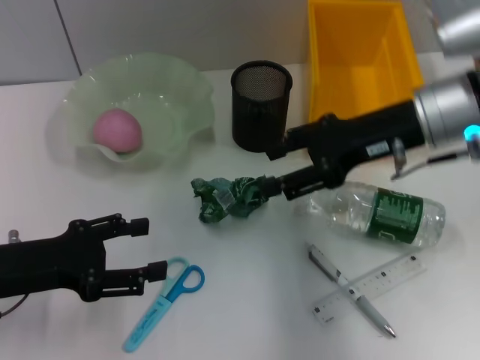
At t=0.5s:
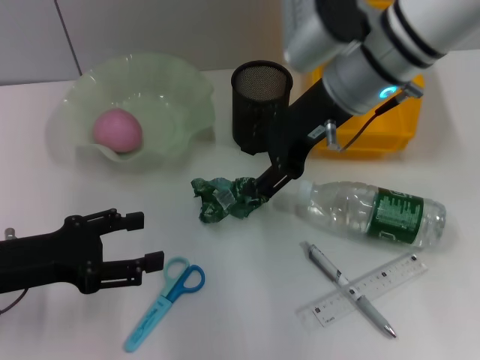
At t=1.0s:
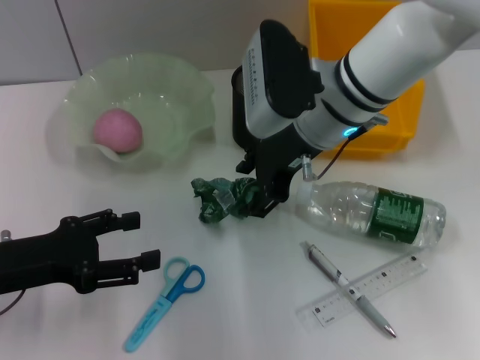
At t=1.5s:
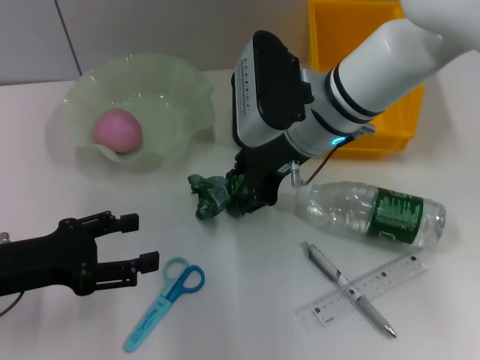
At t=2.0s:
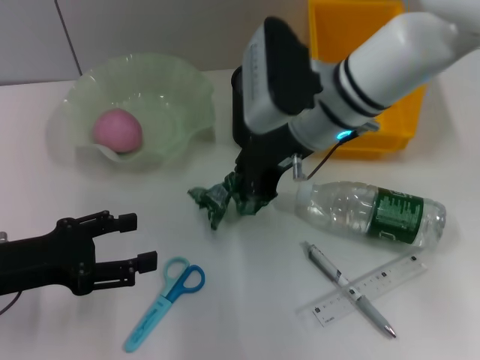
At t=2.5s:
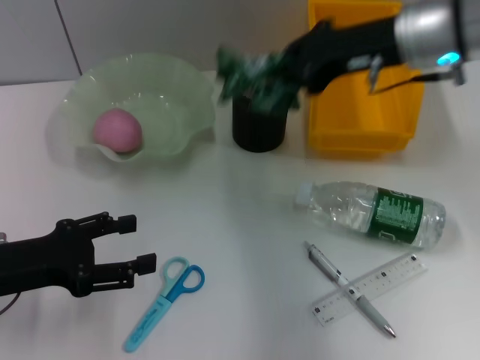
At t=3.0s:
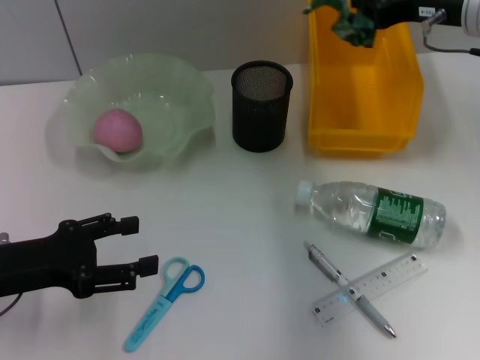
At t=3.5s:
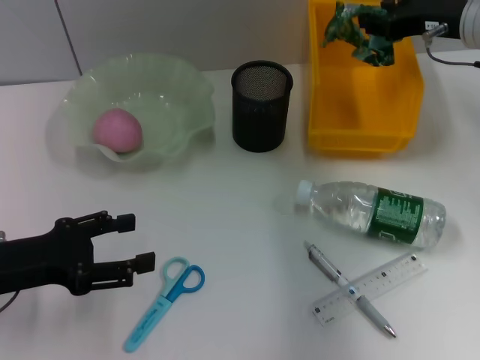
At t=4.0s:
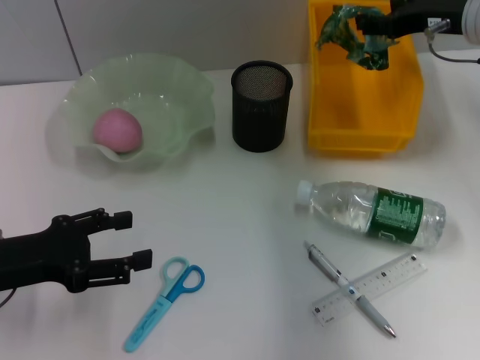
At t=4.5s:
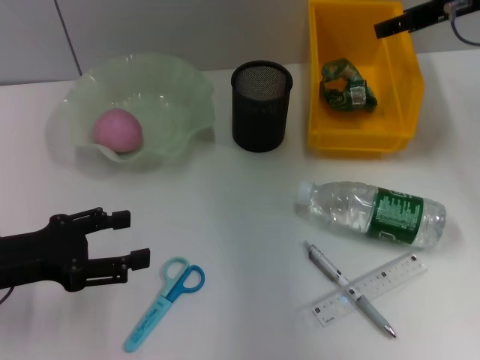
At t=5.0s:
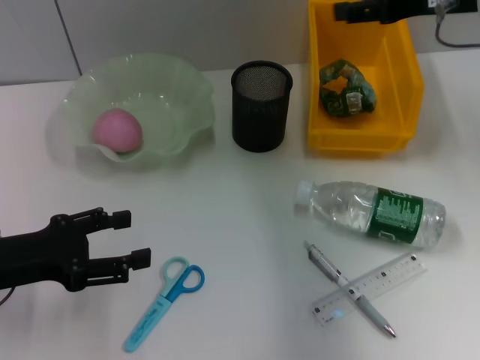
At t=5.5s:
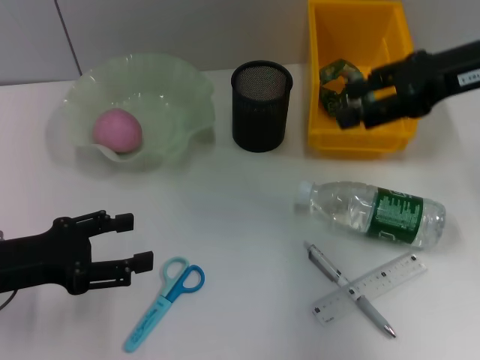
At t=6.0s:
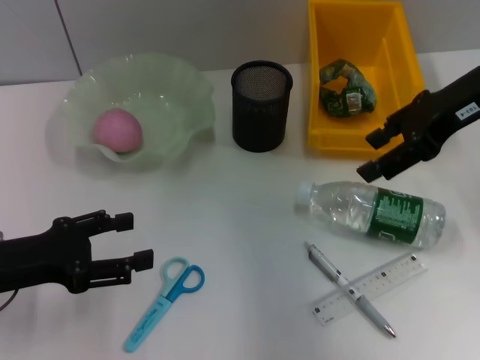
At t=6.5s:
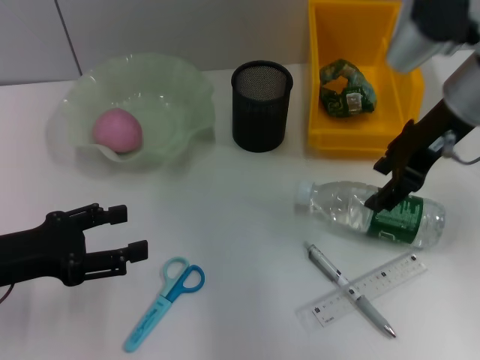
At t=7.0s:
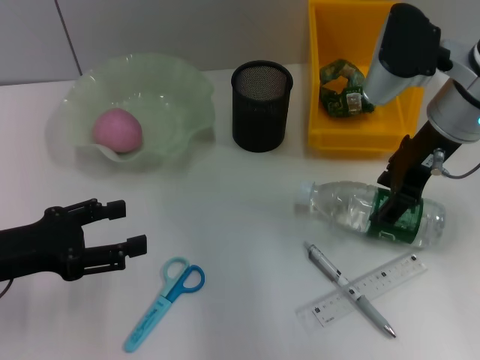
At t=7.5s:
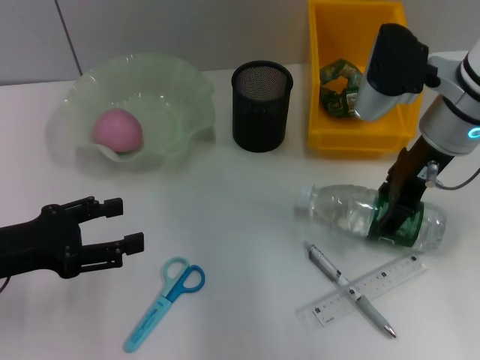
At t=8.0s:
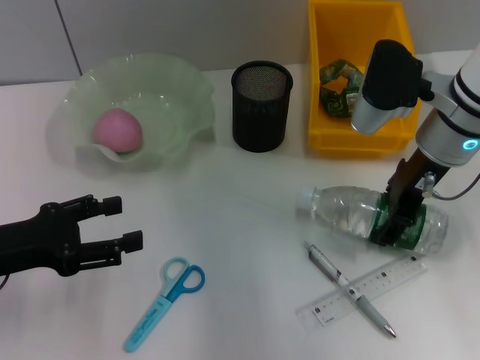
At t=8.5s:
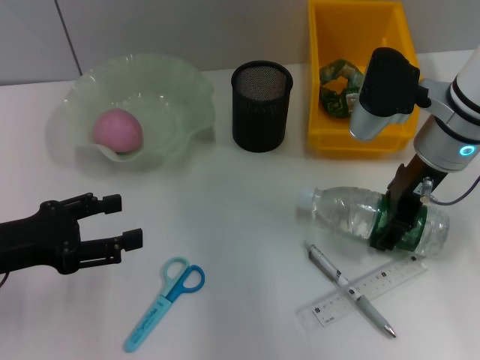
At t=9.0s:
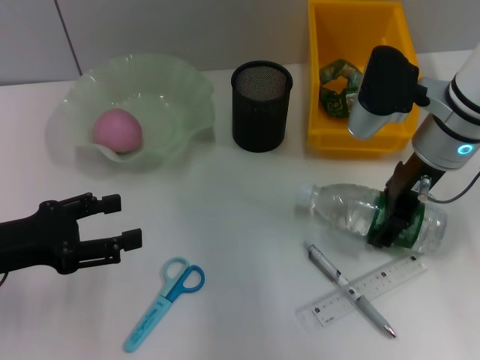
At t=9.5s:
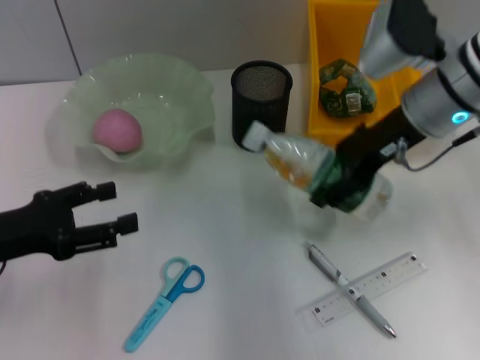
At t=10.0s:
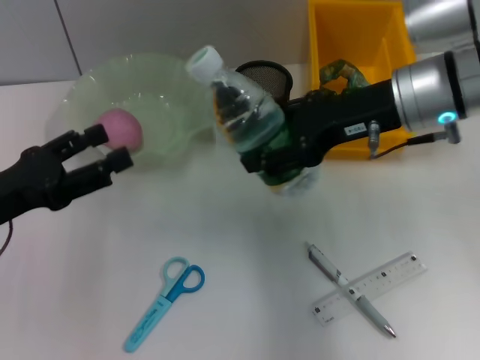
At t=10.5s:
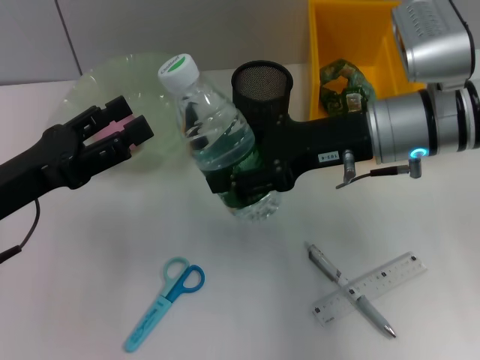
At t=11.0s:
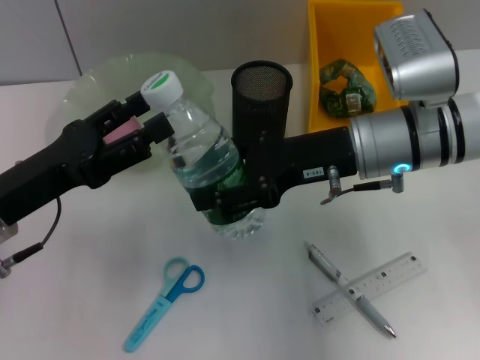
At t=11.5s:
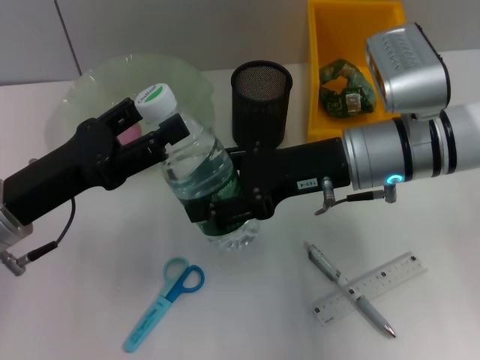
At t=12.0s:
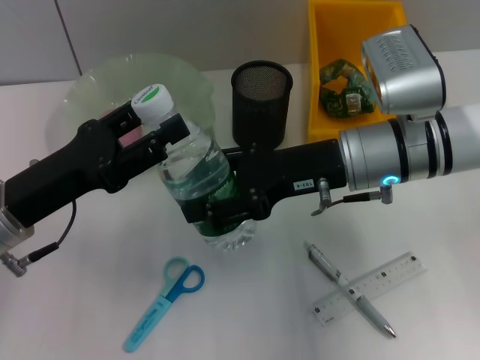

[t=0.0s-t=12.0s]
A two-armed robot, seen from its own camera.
Step, t=0.0s to t=1.5s: Grab the plastic with the right hand.
Step, t=2.0s to t=4.0s: Place the plastic into the trash can with the right hand.
Step, t=4.5s to t=8.5s: Grab the water bottle with the right hand.
t=0.0s to t=2.0s: The right gripper goes roughly 10 cm to the left, and closes up.
t=2.0s to t=4.0s: The right gripper is displaced to the right by roughly 15 cm, and opens up.
t=4.0s to t=6.0s: The right gripper shifts some 5 cm backward.
t=6.0s to t=8.0s: The right gripper heads downward and to the left, covering roughly 10 cm.
t=10.0s to t=12.0s: The left gripper moves to the right, approximately 5 cm; the right gripper heads downward, covering approximately 5 cm.

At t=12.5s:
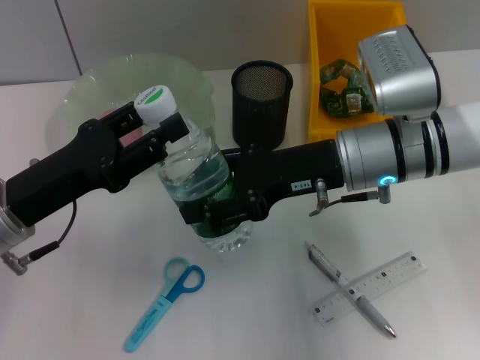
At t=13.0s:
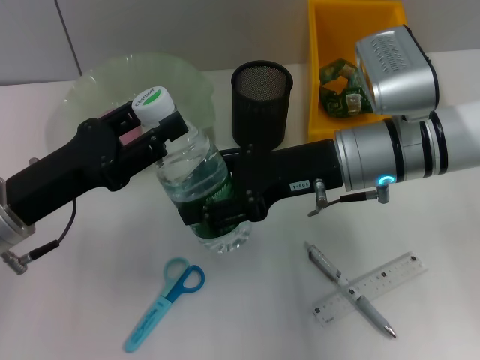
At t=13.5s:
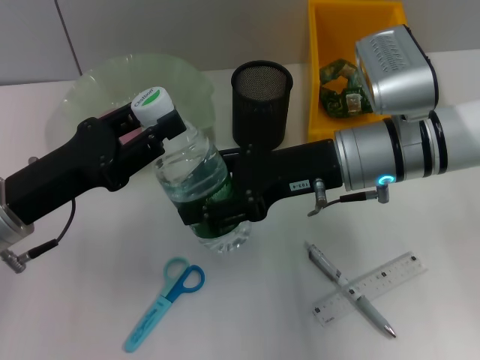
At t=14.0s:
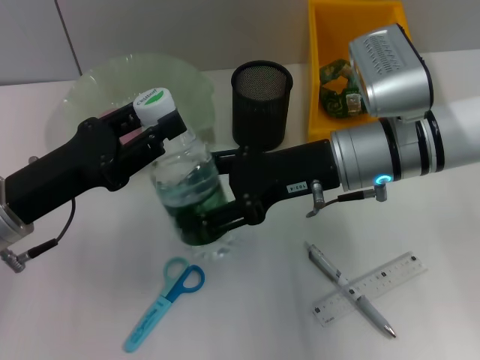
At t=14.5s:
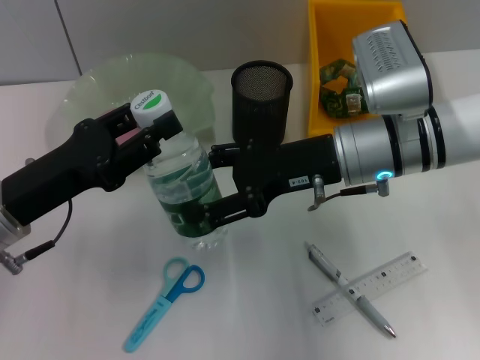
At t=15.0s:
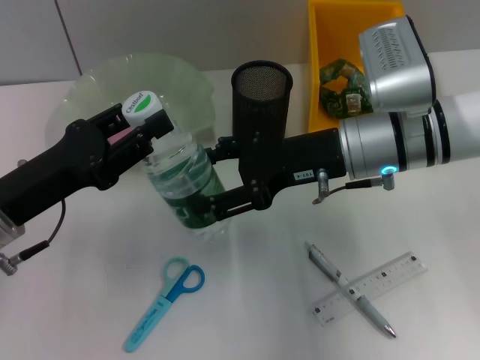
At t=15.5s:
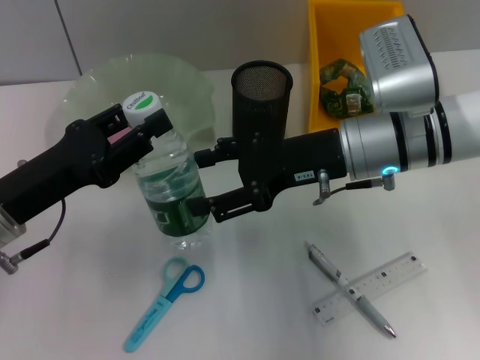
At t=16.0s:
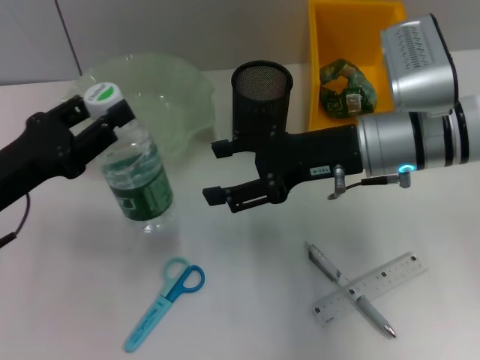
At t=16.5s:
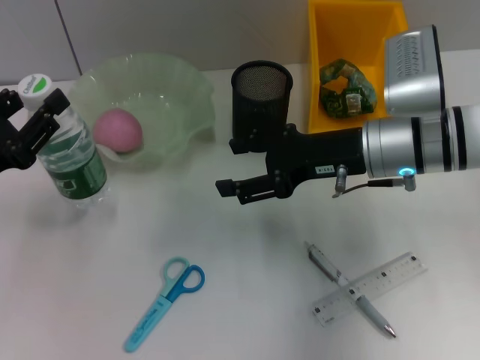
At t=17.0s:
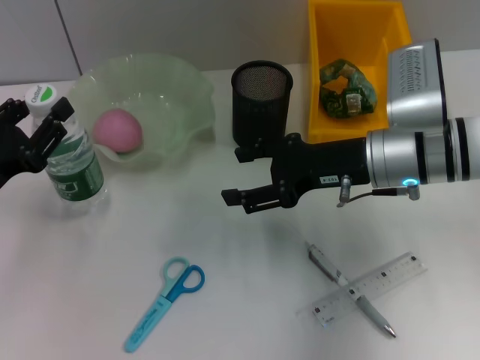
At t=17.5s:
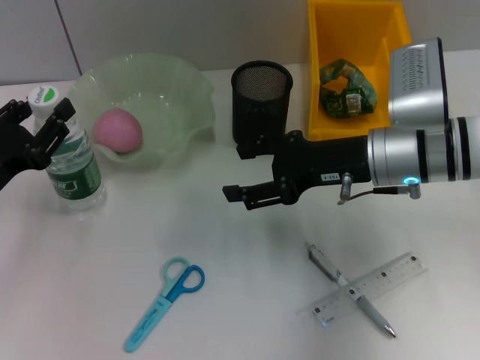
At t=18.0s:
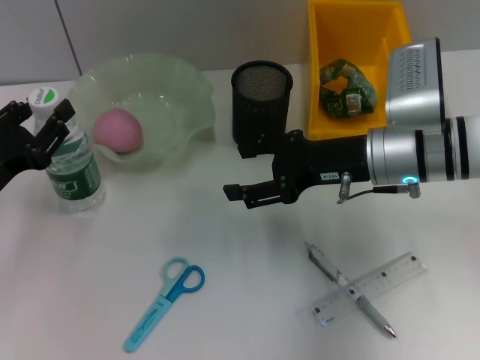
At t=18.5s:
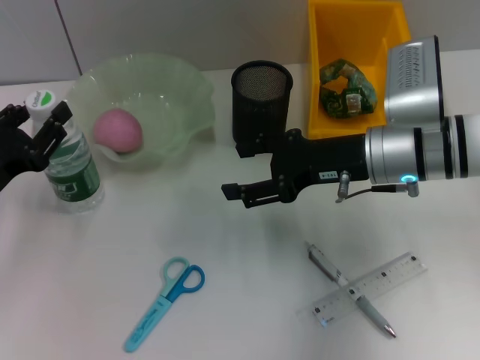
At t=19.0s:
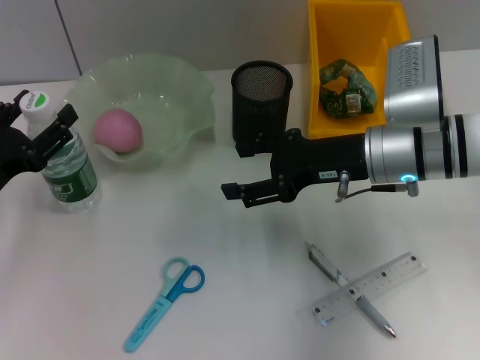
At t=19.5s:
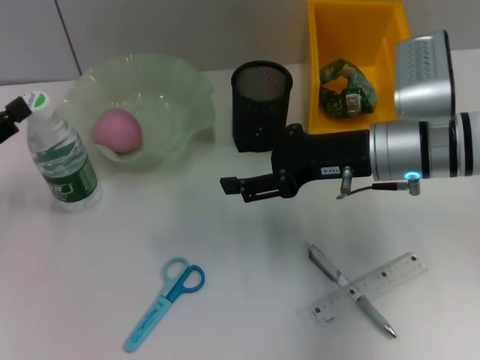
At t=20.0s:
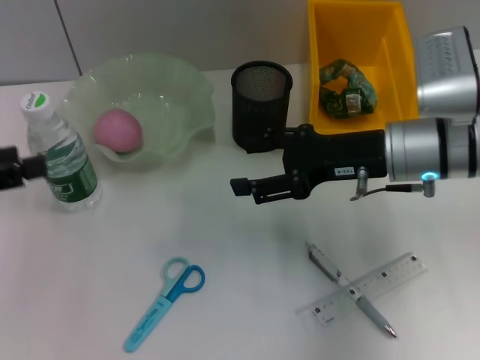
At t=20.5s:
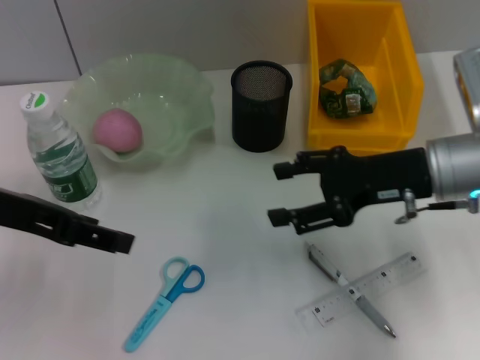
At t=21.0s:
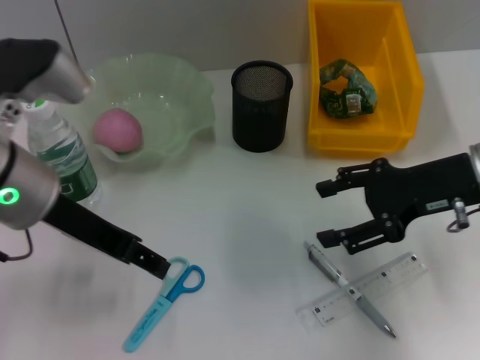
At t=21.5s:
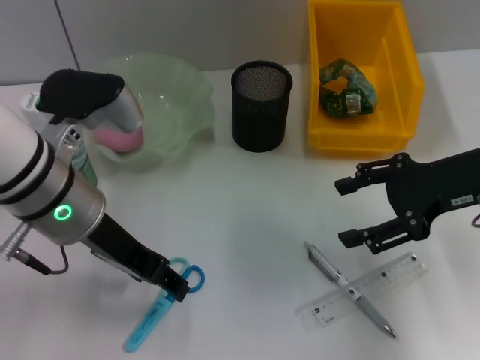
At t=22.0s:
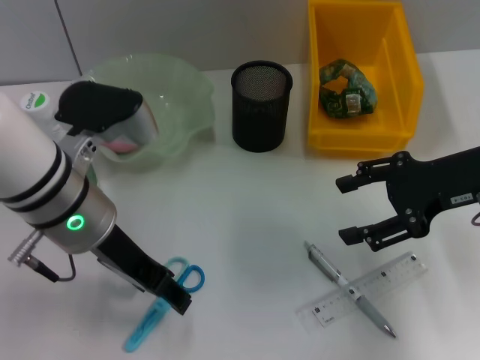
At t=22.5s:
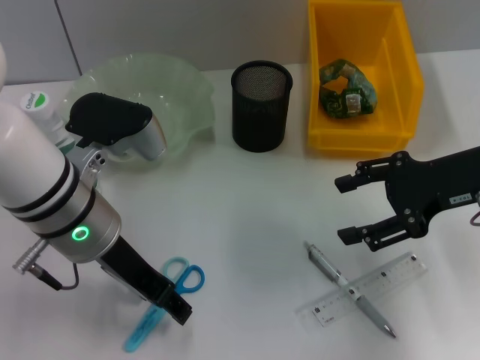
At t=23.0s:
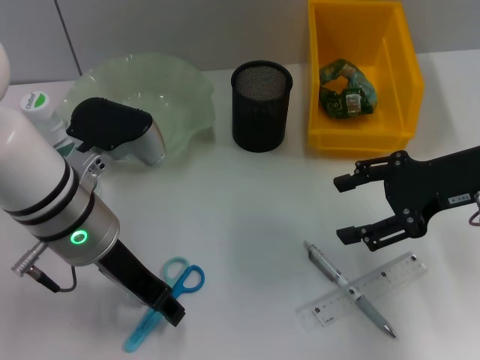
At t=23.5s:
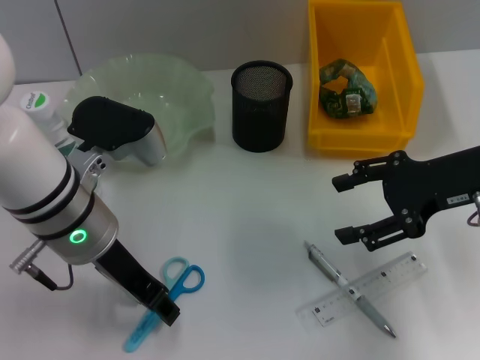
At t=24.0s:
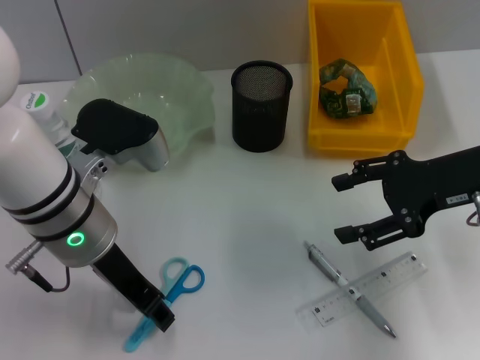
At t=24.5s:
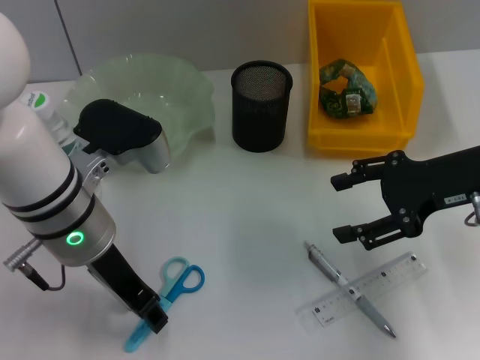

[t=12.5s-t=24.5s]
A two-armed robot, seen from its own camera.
Step, t=14.5s to t=19.0s: Place the water bottle on the table with the left hand.
t=12.5s to t=14.5s: The two grippers keep their place.
t=14.5s to t=16.5s: The left gripper is displaced to the left by roughly 5 cm.
t=16.5s to t=18.5s: There are only small adjustments of the grippers.
t=18.5s to t=20.5s: The left gripper moves upward, roughly 15 cm, and opens up. The right gripper shifts by approximately 5 cm.
t=20.5s to t=22.5s: The right gripper changes place by about 5 cm, while the left gripper goes some 10 cm to the right and downward.
t=22.5s to t=24.5s: The left gripper closes.

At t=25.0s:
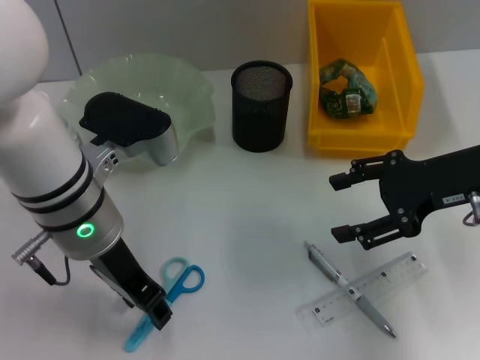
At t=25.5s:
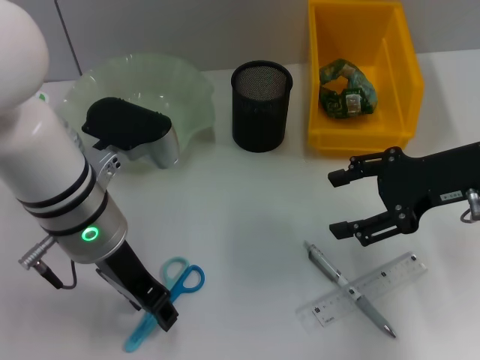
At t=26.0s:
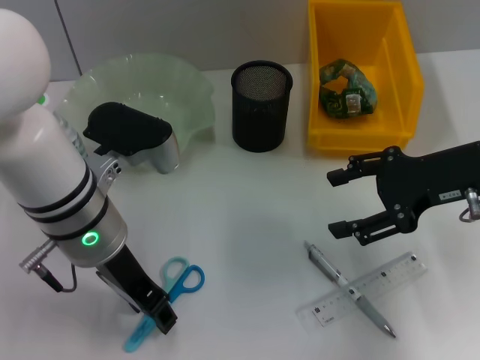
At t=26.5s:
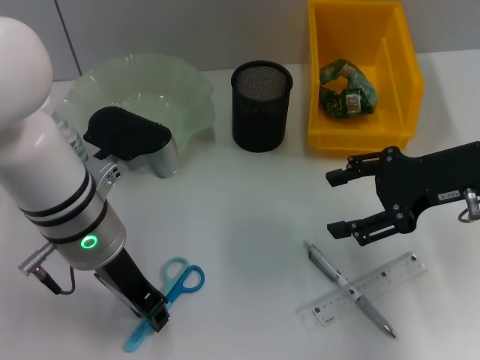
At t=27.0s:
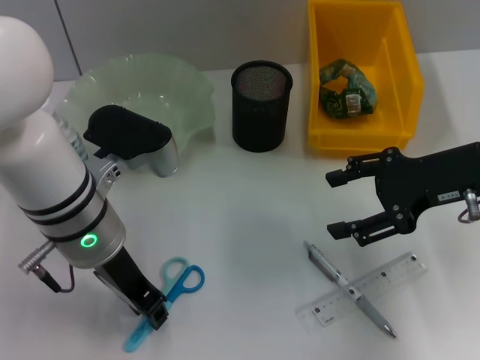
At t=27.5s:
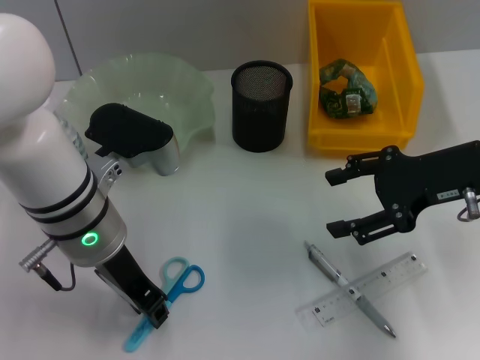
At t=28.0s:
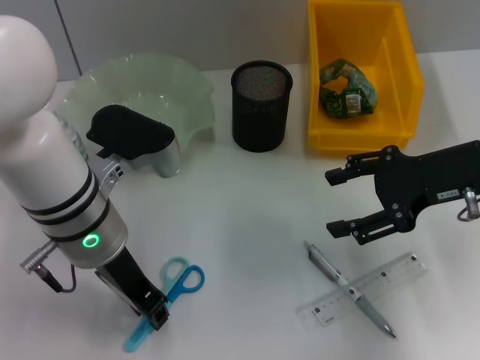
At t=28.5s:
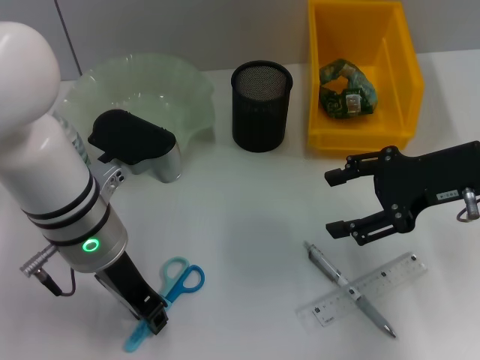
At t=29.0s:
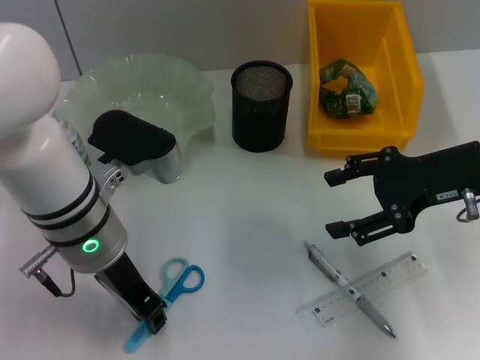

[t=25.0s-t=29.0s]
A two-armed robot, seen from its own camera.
t=25.0s to t=27.0s: The grippers move only a little.
t=27.0s to t=29.0s: Both grippers stay about where they are.
